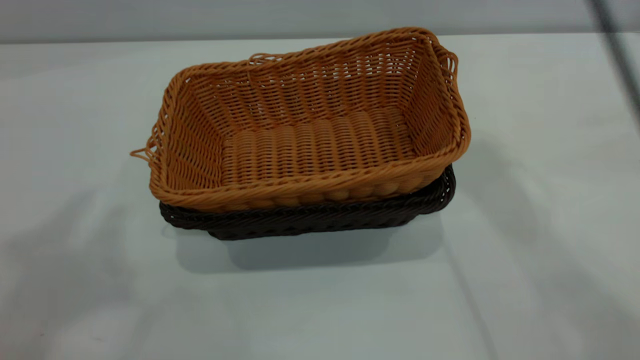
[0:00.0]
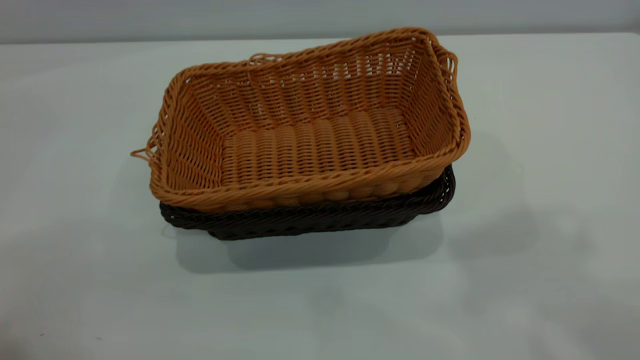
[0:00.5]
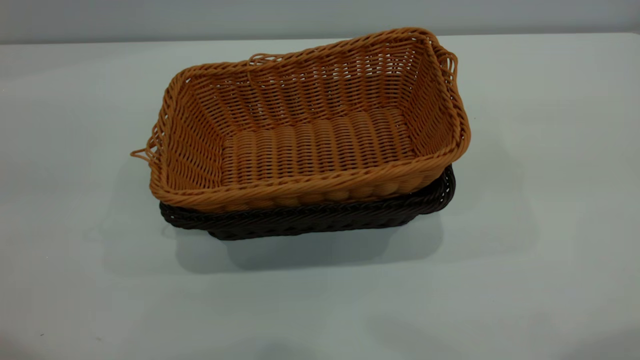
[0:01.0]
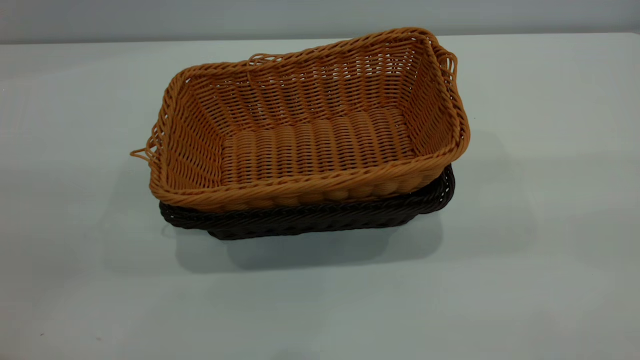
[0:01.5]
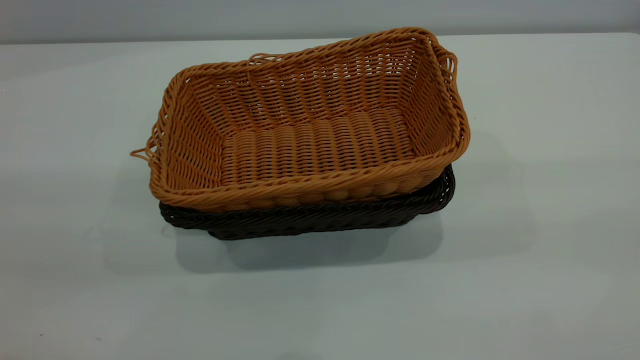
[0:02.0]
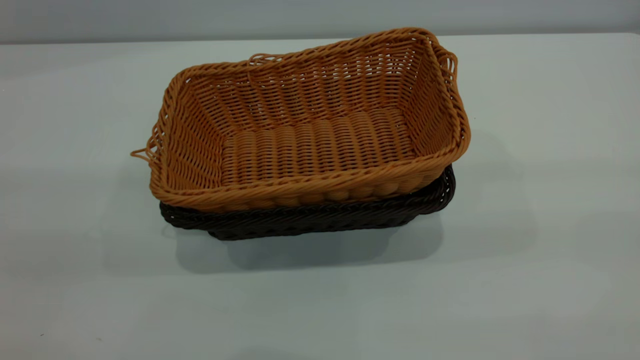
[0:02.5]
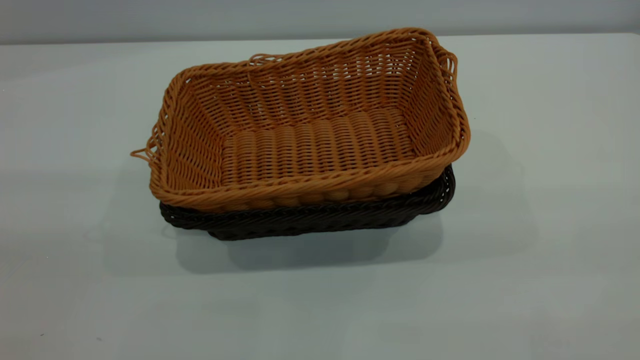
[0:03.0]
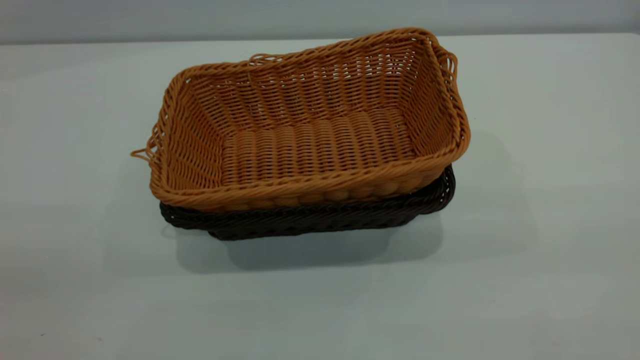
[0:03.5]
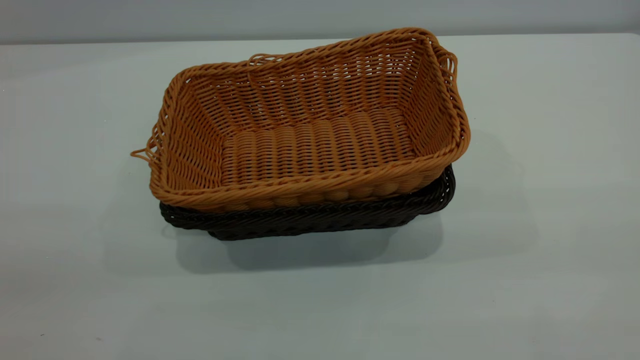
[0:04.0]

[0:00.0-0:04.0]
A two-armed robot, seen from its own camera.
Task of the whole recording: the left gripper grasp the black basket and place it in the center of the table, the right gripper grasp the brown basket and place it inside the black one.
0:00.0 to 0:02.0: The right gripper shifts about 35 cm backward and to the right.
